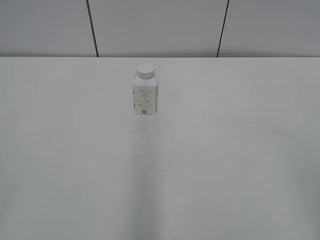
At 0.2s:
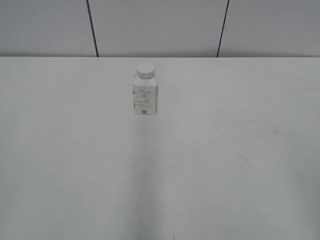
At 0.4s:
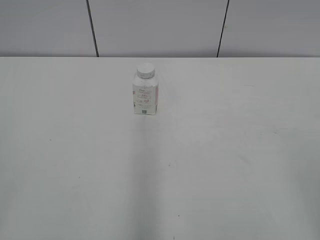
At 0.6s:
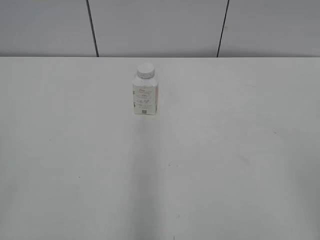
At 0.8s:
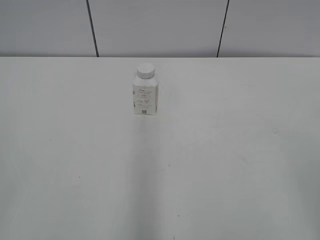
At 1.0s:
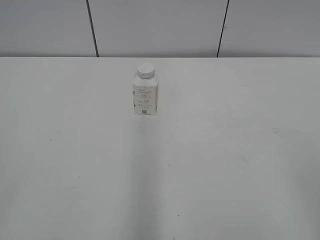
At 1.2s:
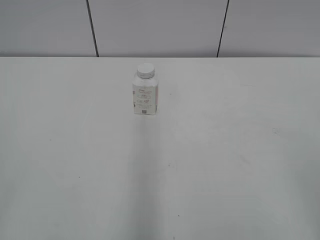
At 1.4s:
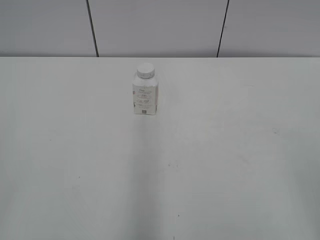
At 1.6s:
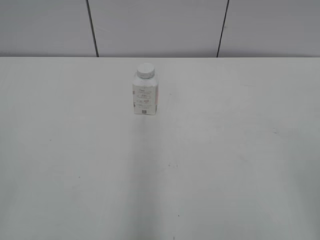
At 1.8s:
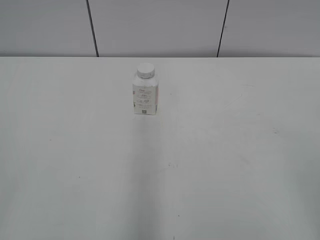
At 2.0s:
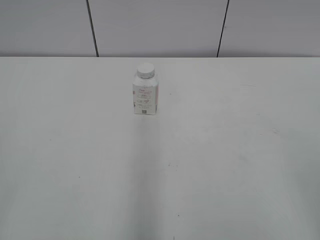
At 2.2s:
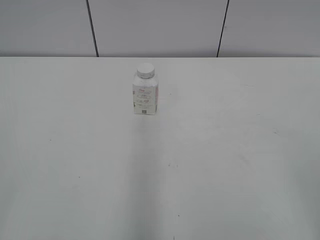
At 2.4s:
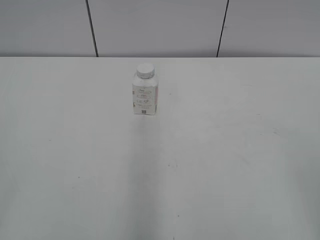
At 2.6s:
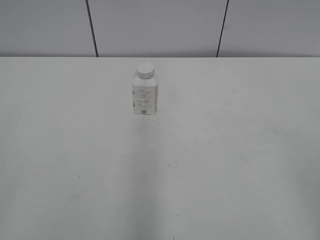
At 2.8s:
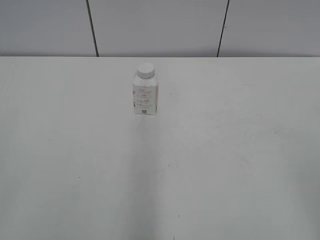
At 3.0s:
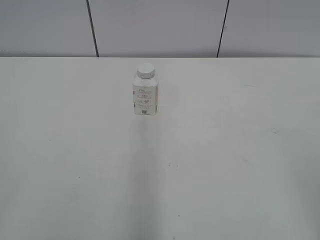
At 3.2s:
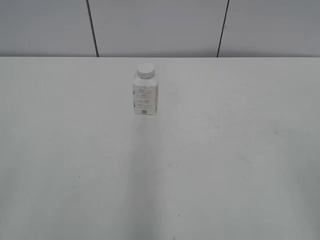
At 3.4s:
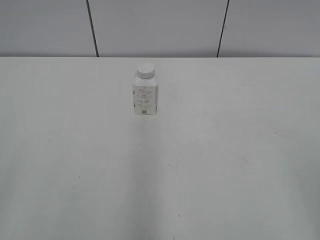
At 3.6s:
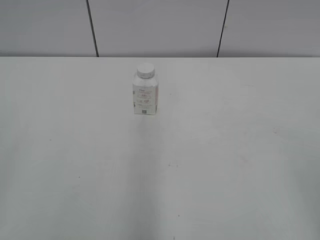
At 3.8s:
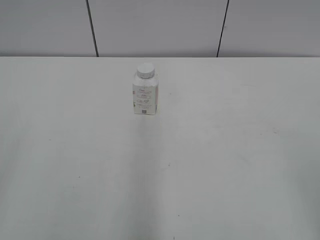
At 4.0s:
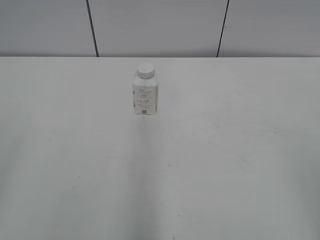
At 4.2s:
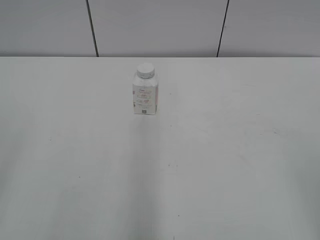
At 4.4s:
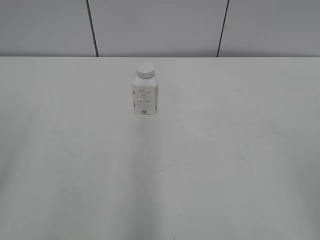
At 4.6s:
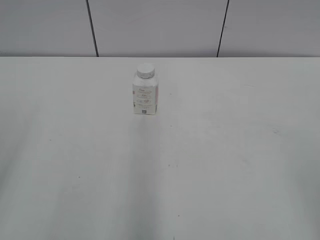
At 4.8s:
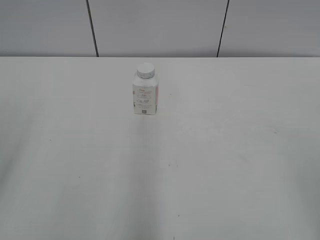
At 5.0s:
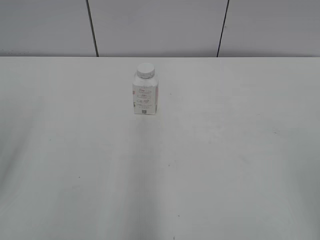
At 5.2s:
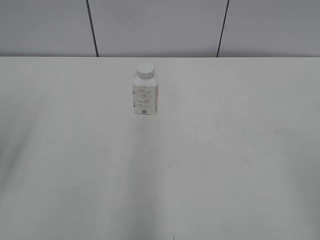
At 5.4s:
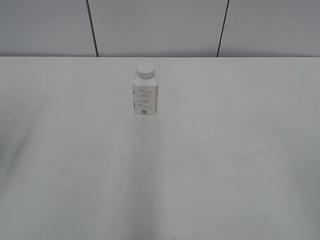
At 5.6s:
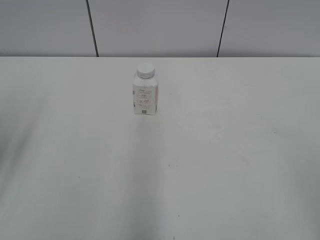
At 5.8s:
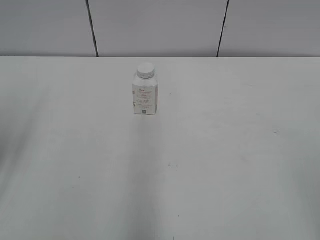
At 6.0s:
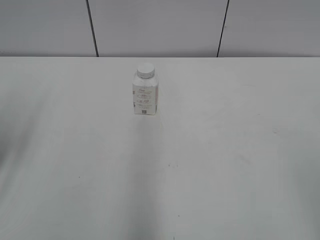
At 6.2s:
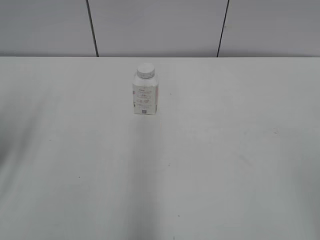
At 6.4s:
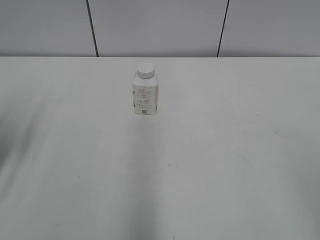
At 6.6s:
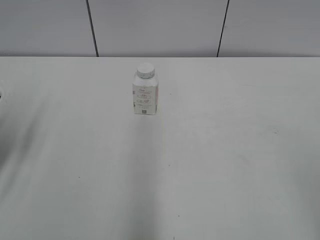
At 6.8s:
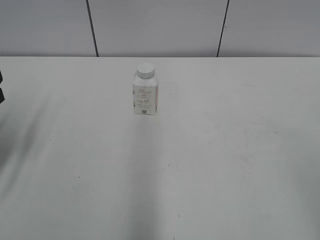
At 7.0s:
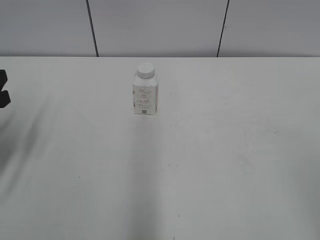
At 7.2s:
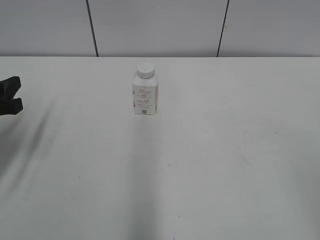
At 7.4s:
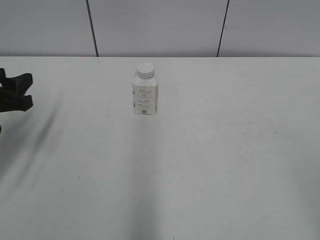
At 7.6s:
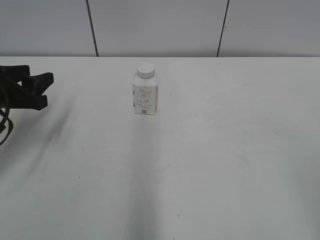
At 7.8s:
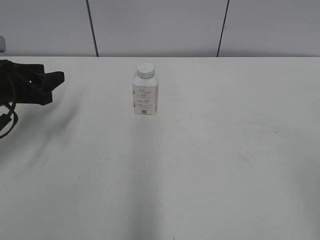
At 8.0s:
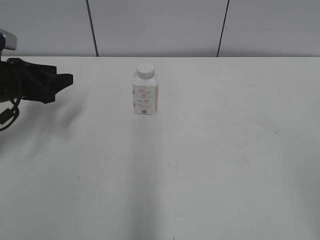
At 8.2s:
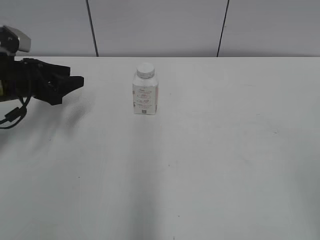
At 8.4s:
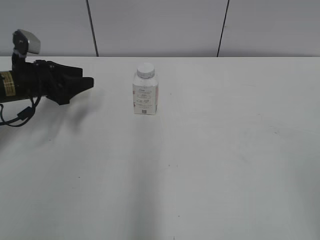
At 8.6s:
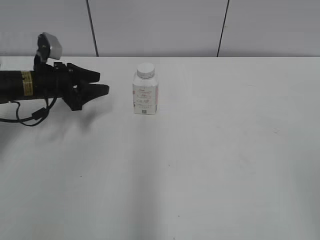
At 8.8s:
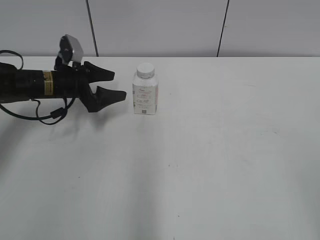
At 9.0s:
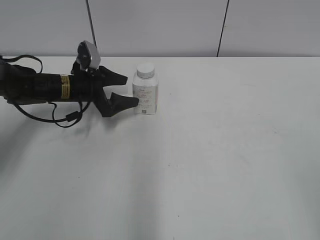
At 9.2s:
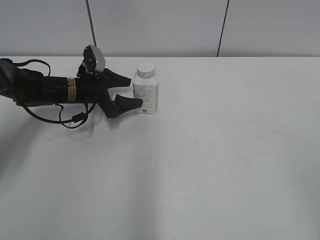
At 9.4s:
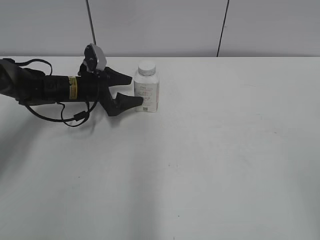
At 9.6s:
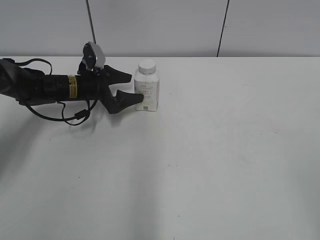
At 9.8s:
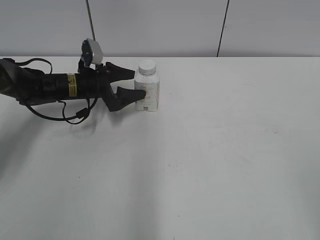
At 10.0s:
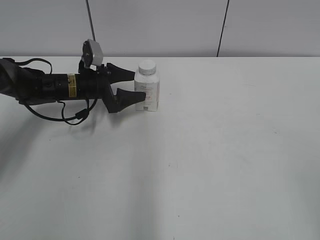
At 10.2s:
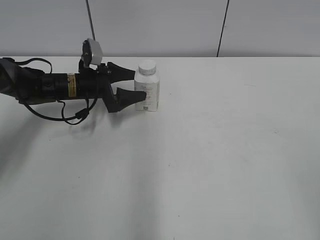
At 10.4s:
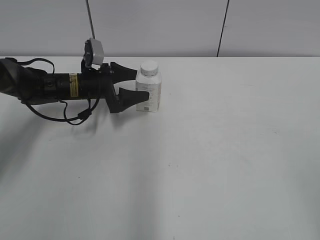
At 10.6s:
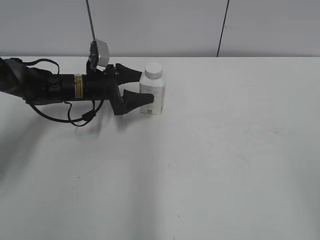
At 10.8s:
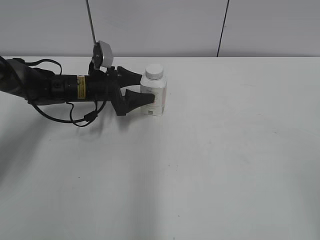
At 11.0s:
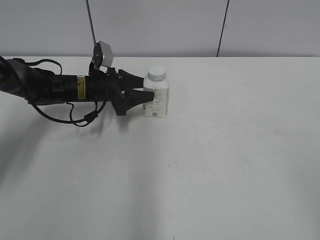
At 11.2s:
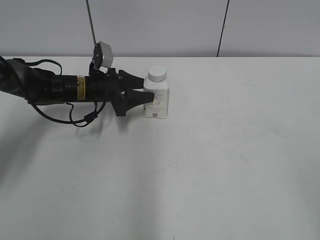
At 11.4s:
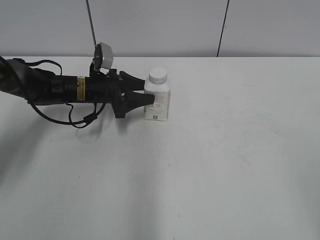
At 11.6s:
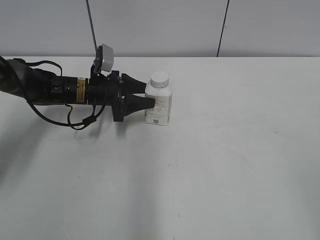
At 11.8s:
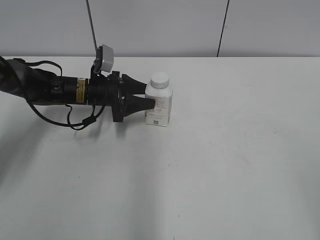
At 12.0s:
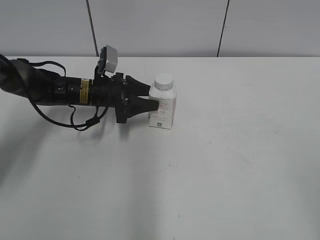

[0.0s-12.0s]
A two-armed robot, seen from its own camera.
Step, 0.0s to 11.2s: Grasp the bottle and move it to the center of the table with the left gripper.
1.6s to 3.0s: The two grippers keep their place.
6.0s to 7.6s: The left gripper shifts roughly 10 cm forward and downward.
7.6s to 9.0s: The left gripper shifts some 20 cm forward, to the right and downward, and opens its fingers.
9.0s to 10.4s: There are only small adjustments of the grippers.
10.4s to 12.0s: The left gripper closes its fingers.

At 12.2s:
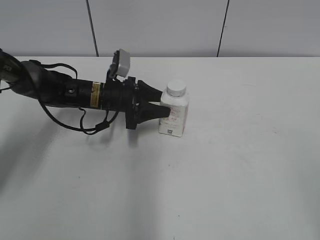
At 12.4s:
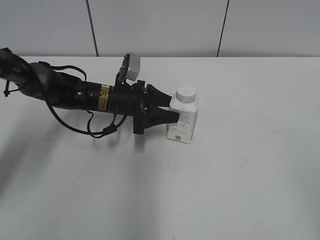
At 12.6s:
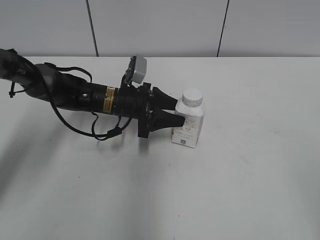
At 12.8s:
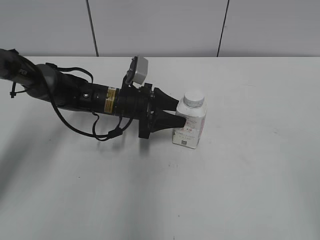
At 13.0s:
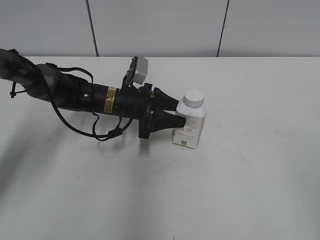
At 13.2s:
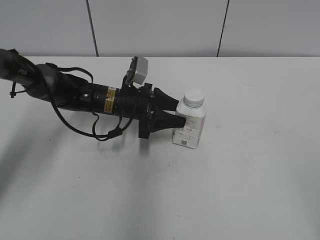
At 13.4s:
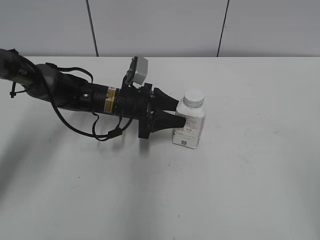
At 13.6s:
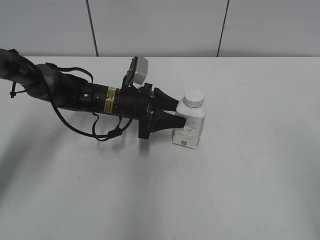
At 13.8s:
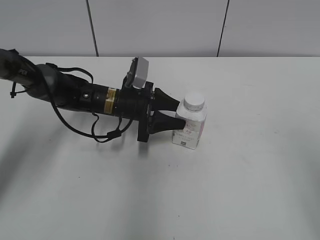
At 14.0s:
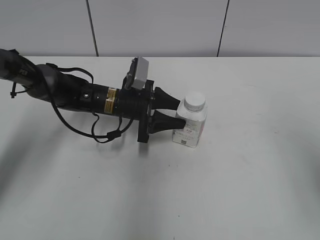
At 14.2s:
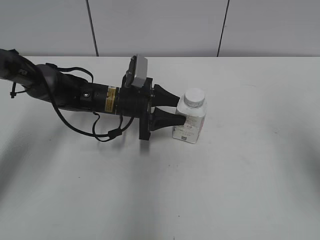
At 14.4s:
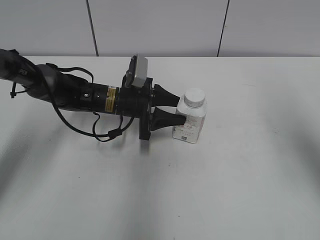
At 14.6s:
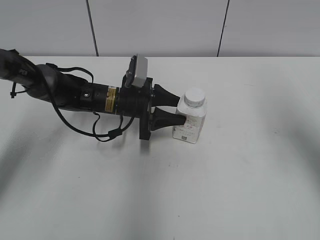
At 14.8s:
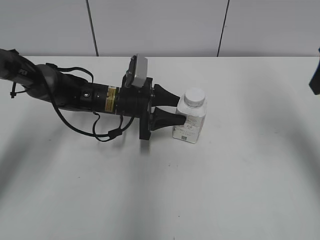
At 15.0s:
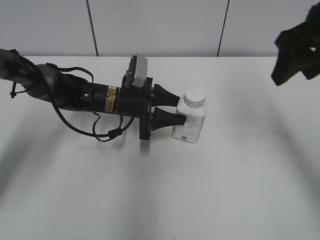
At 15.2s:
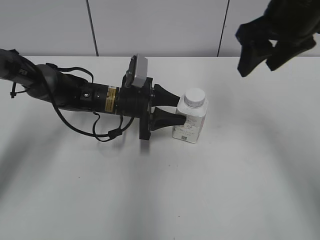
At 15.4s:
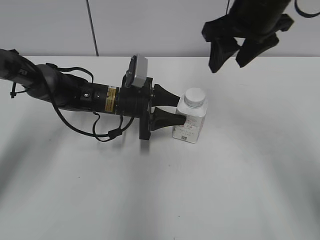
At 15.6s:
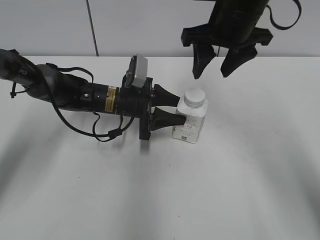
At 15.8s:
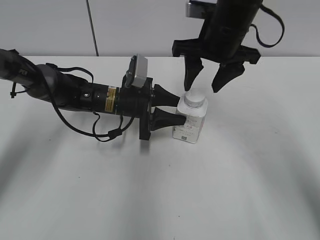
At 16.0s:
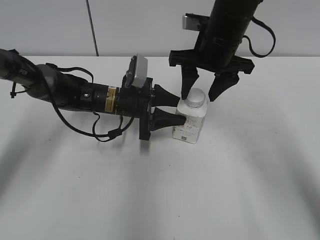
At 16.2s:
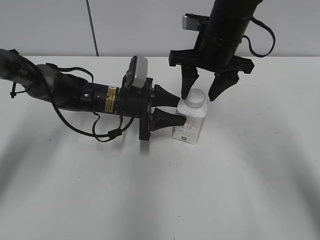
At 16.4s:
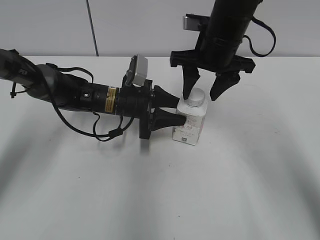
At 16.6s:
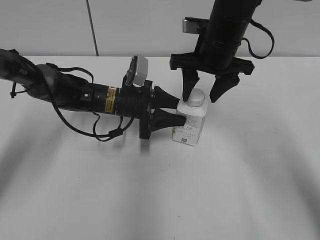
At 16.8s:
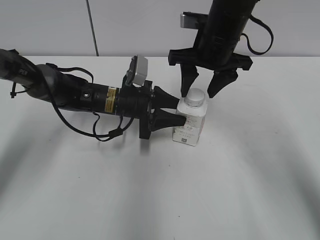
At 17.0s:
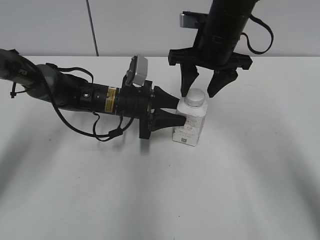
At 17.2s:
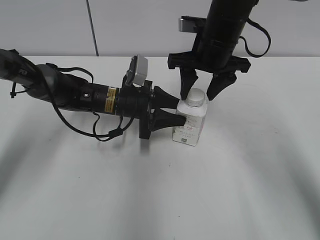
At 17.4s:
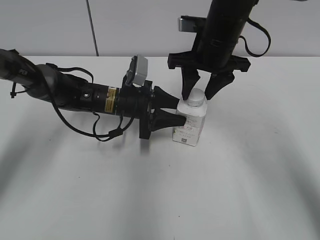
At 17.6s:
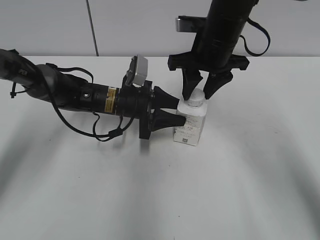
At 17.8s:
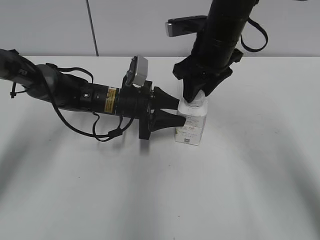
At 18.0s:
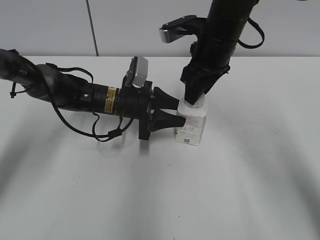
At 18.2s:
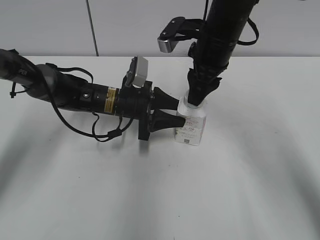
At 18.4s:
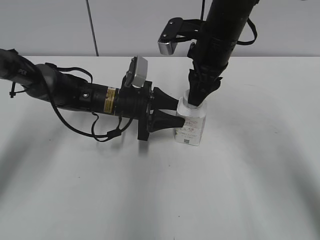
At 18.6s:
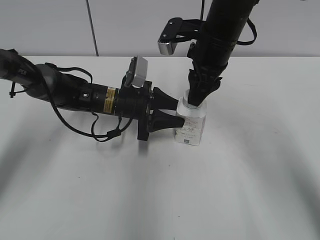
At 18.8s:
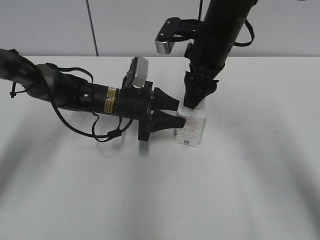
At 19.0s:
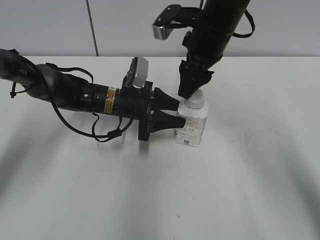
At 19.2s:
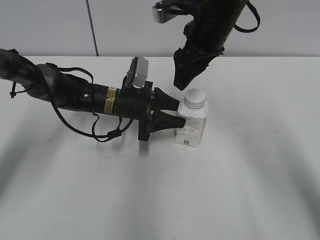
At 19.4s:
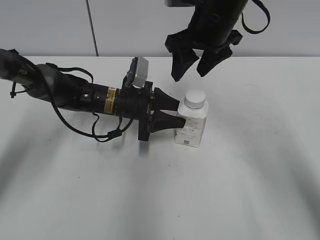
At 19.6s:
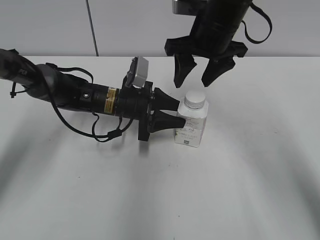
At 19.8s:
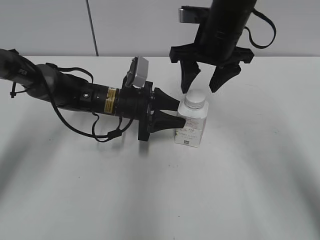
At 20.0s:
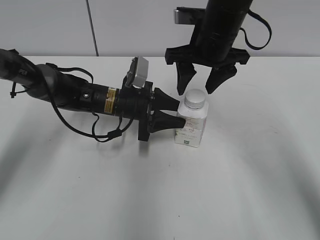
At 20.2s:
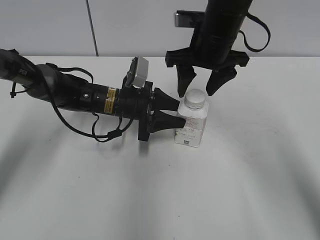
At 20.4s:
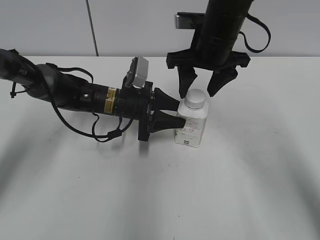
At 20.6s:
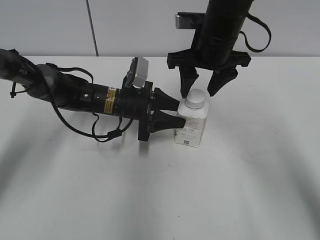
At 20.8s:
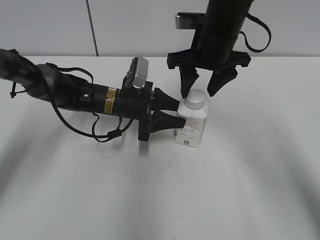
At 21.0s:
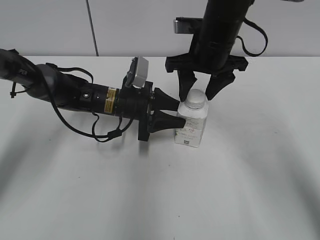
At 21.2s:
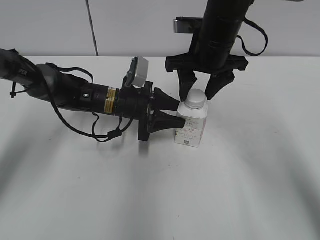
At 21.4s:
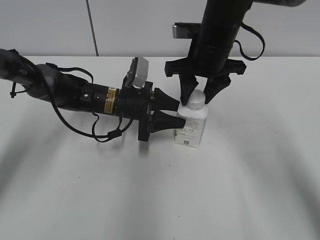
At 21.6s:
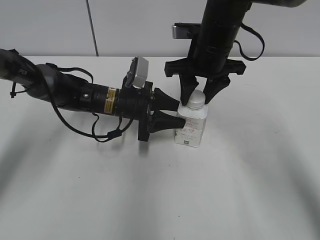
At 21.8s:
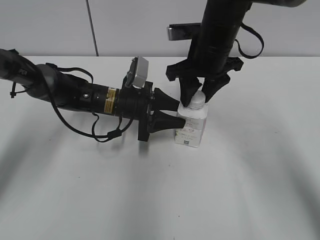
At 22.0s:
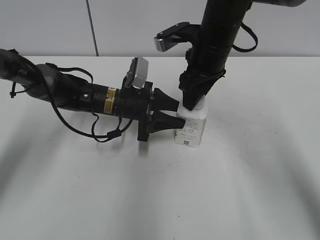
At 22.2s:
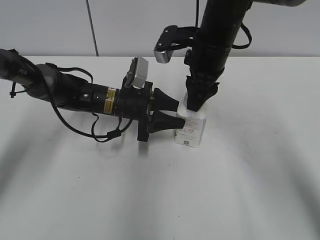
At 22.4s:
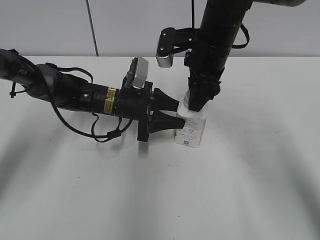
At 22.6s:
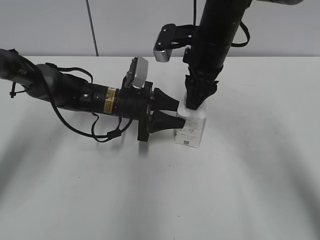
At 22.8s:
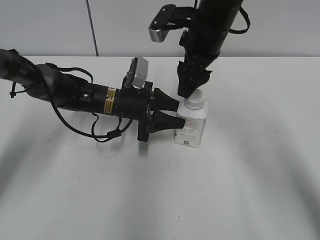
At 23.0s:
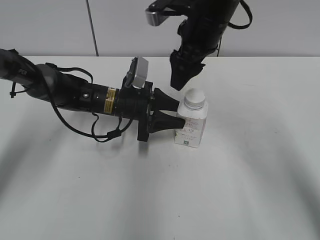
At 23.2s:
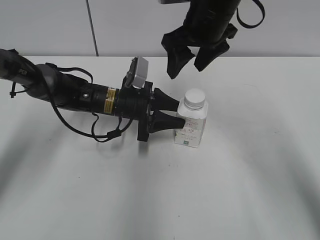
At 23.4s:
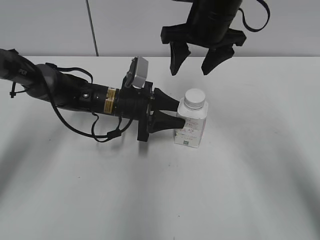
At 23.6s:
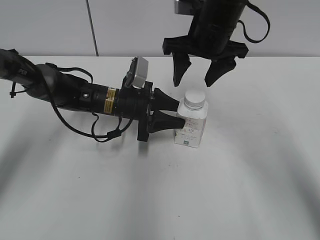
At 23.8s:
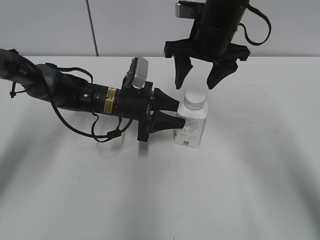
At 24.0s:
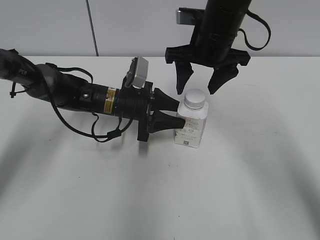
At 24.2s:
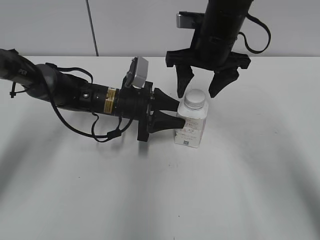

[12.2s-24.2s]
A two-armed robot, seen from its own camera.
Step, 12.2s to 14.4s: Lift the bottle and move it to the center of the table with the left gripper.
12.2s to 13.8s: The right gripper travels forward by some 10 cm.
13.8s to 15.2s: The right gripper shifts roughly 30 cm forward and to the left.
15.2s to 16.6s: The right gripper heads downward and to the left, covering some 10 cm.
16.6s to 18.2s: The right gripper closes up.
18.2s to 19.8s: The right gripper opens up.
19.8s to 21.2s: The grippers stay close to where they were, moving slightly.
22.6s to 24.2s: The right gripper opens its fingers.
